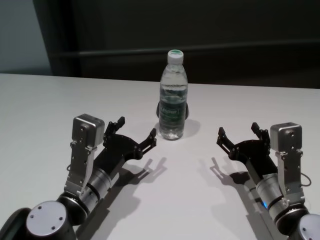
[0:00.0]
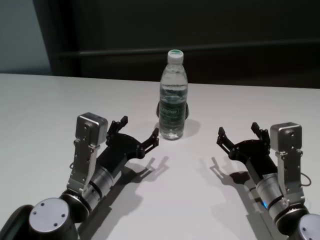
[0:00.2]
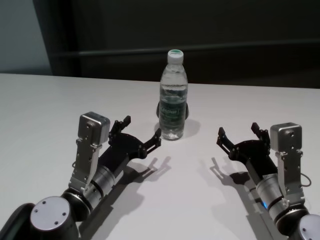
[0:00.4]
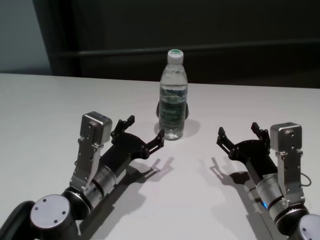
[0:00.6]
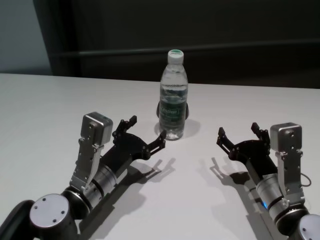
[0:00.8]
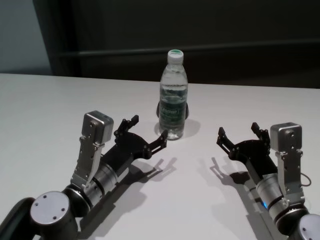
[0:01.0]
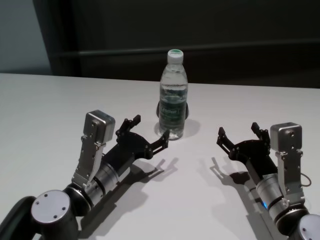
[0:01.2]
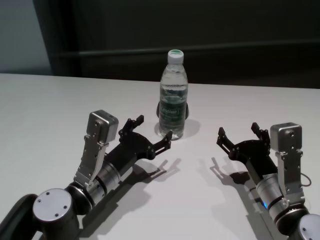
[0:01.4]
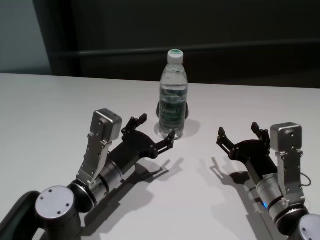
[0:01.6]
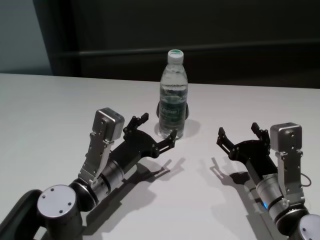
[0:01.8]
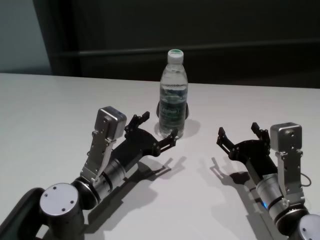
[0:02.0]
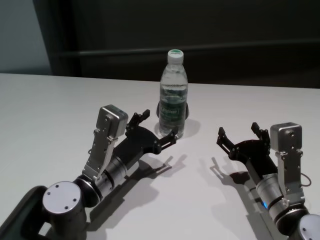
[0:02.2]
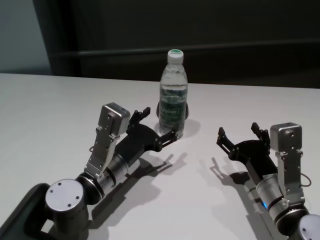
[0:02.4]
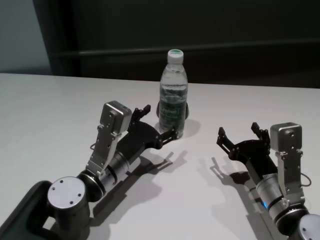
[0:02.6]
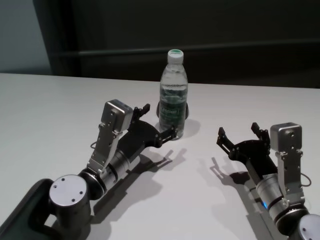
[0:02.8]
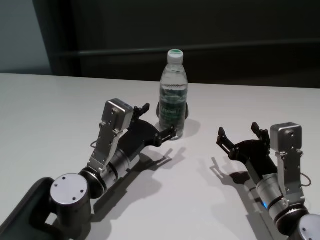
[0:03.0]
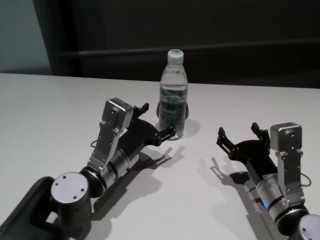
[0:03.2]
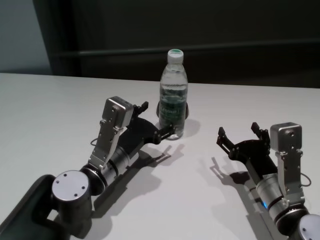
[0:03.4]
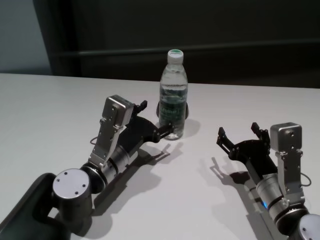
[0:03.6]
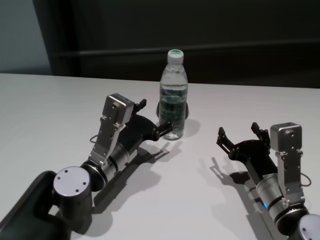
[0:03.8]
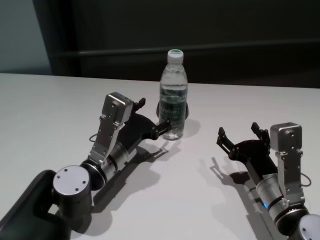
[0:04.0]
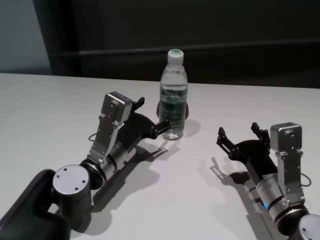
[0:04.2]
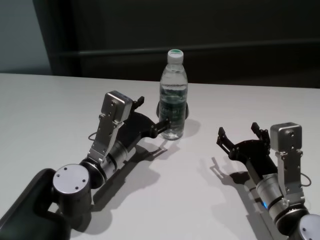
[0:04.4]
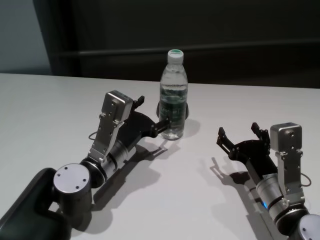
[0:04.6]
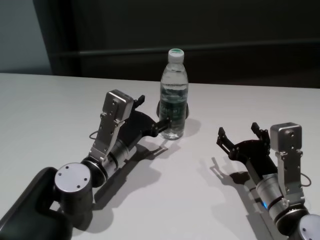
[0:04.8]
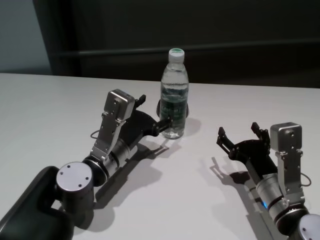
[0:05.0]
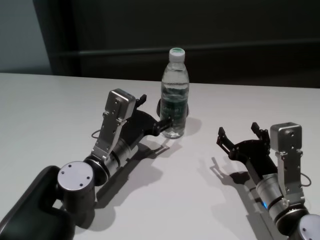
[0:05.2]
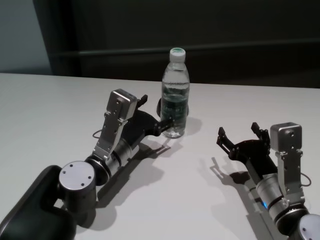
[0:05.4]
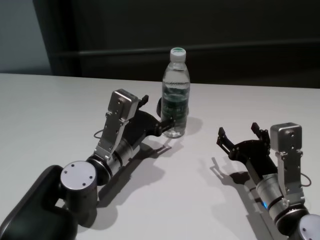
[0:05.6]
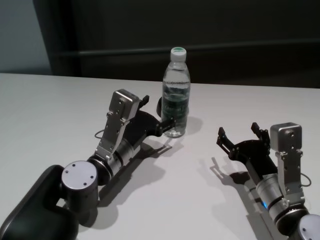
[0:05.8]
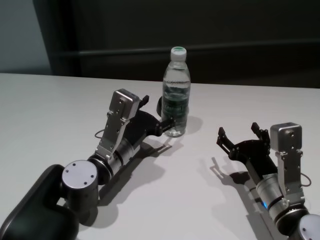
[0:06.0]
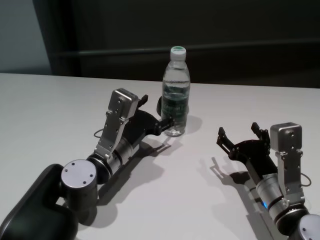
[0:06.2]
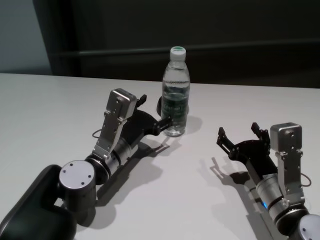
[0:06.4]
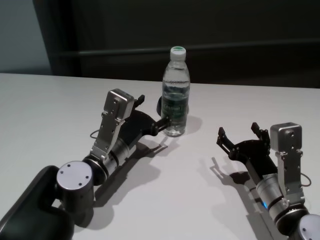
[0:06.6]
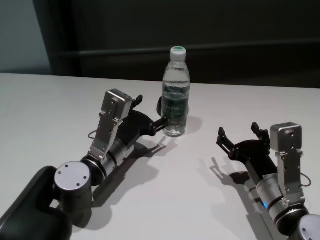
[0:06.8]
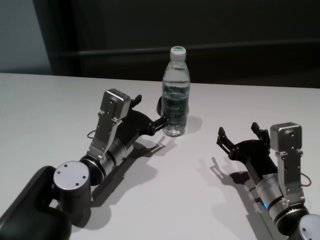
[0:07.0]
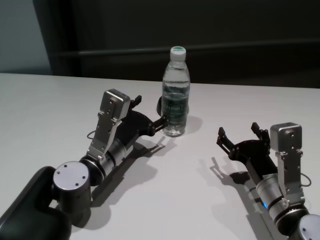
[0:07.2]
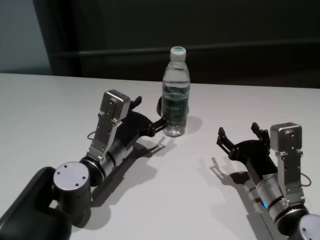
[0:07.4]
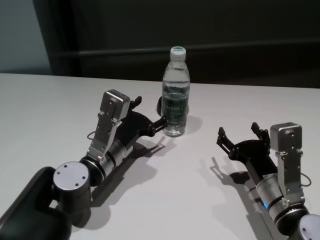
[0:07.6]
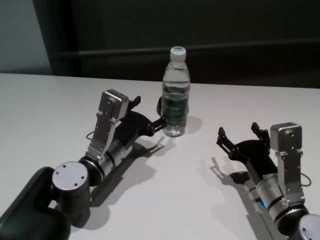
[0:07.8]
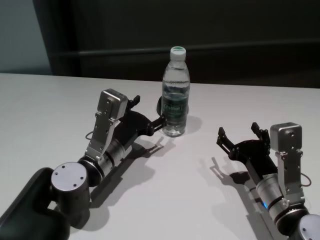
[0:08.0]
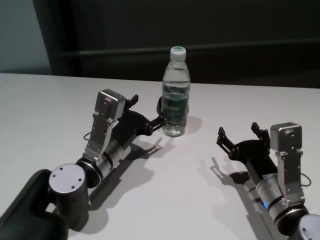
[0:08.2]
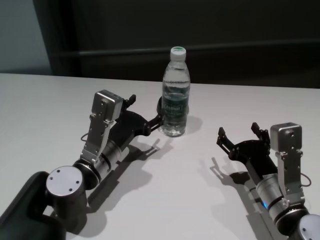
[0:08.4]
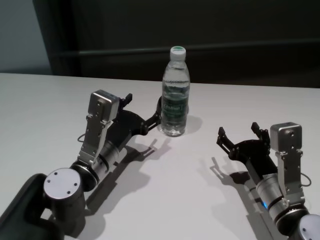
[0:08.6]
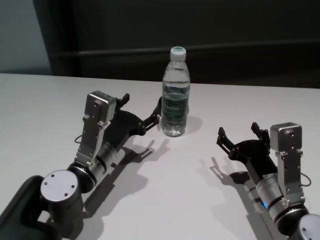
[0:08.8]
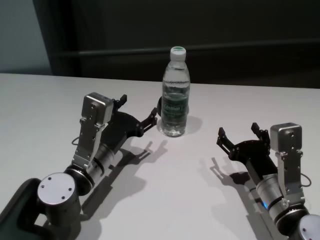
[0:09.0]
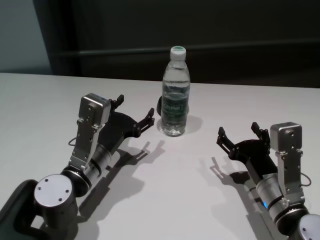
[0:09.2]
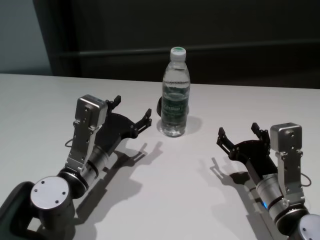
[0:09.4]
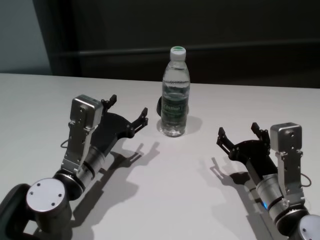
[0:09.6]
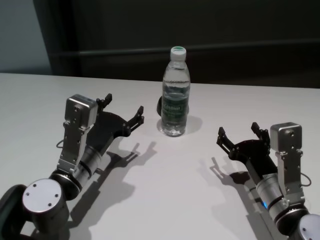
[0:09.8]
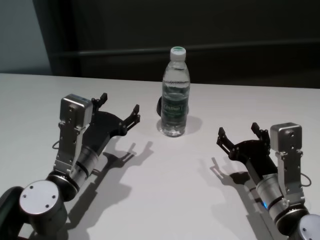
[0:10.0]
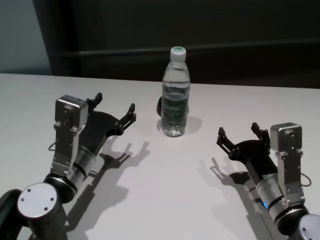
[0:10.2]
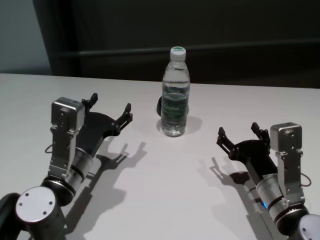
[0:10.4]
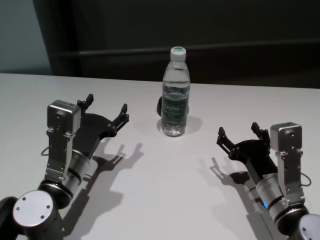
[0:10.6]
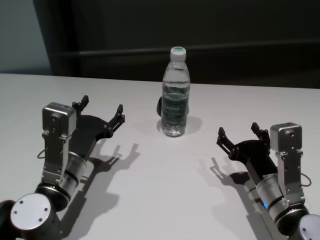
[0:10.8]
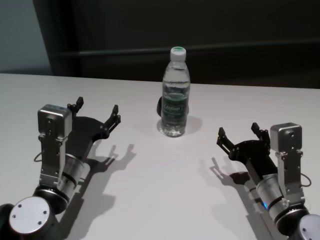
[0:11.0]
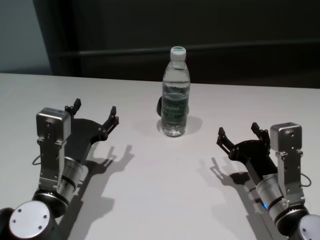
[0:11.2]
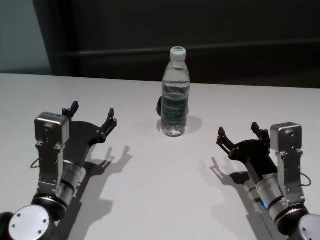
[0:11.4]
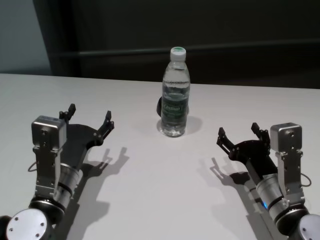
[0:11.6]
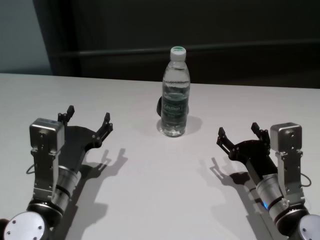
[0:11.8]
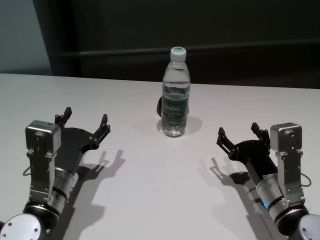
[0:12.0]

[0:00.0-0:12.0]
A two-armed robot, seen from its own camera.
Task of the whole recording: return to a safe position after touching an obstacle with your arm on the white table.
Step, 0:00.0 to 0:09.0: Touch the bottle with left gripper.

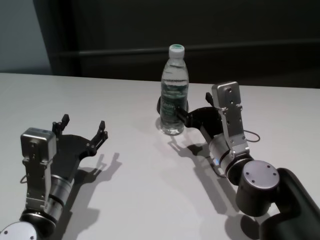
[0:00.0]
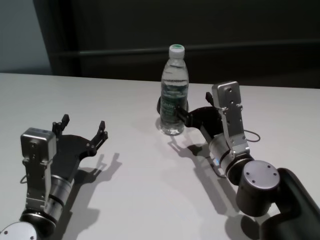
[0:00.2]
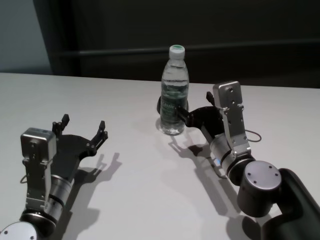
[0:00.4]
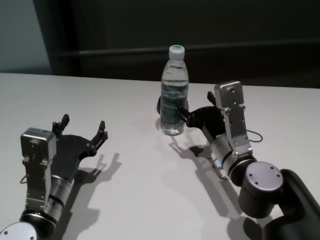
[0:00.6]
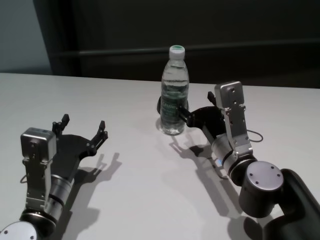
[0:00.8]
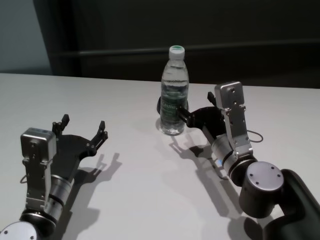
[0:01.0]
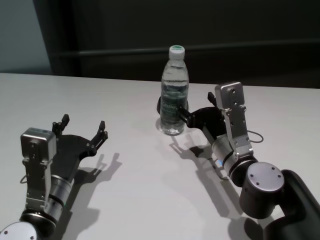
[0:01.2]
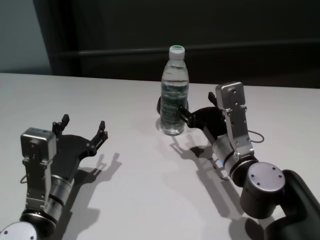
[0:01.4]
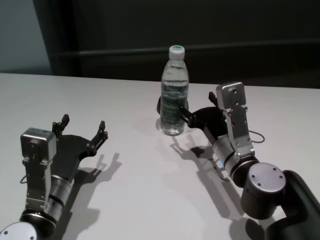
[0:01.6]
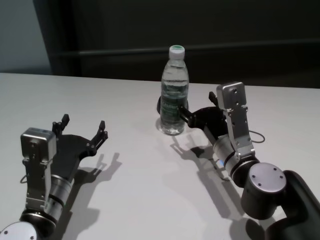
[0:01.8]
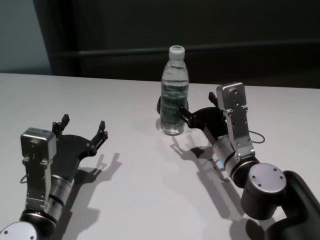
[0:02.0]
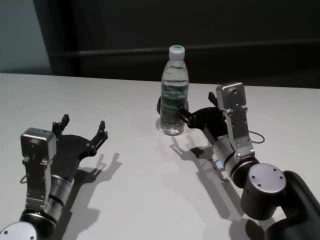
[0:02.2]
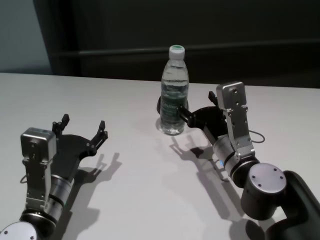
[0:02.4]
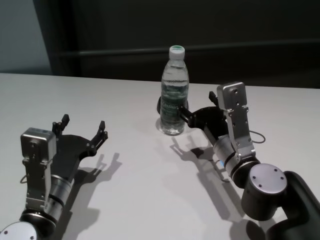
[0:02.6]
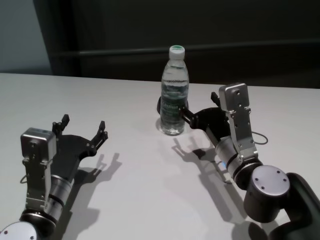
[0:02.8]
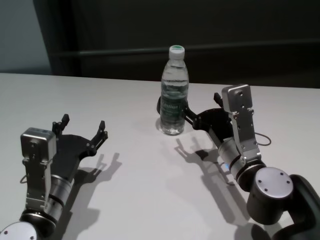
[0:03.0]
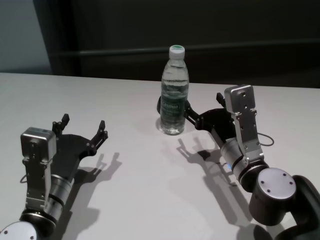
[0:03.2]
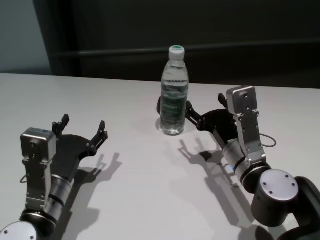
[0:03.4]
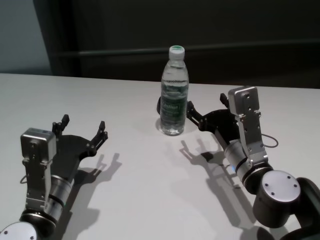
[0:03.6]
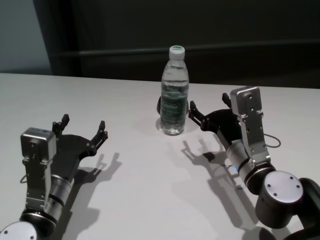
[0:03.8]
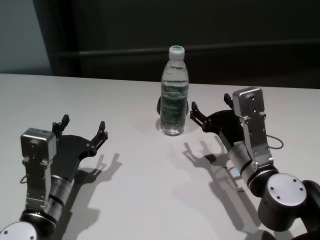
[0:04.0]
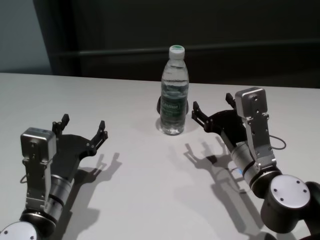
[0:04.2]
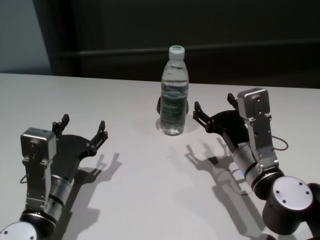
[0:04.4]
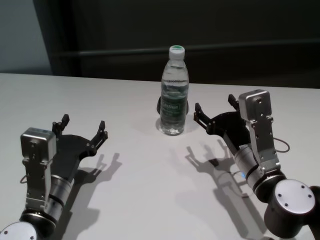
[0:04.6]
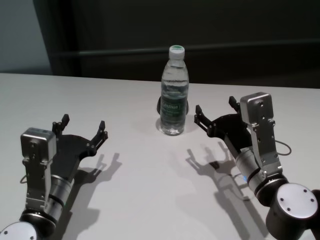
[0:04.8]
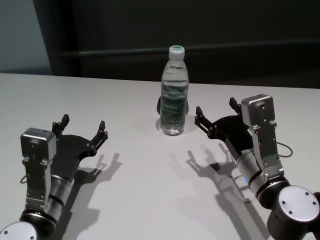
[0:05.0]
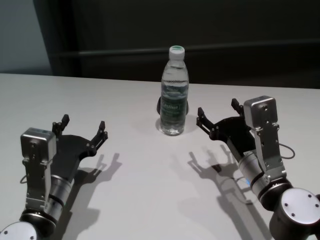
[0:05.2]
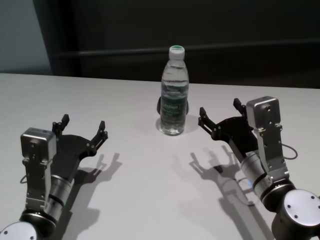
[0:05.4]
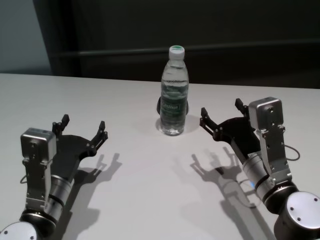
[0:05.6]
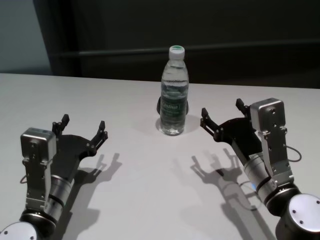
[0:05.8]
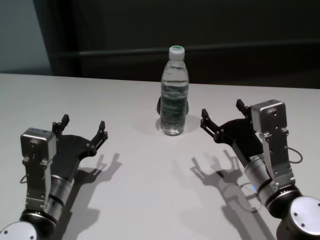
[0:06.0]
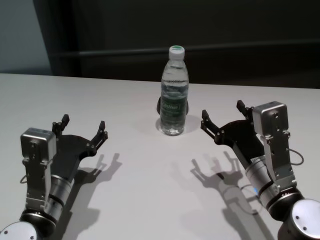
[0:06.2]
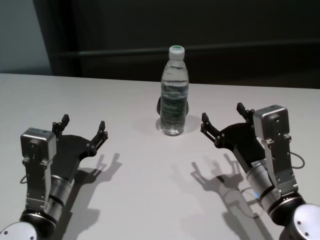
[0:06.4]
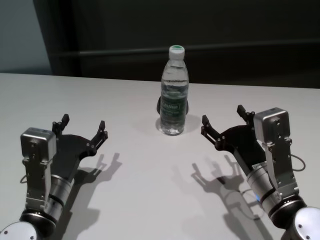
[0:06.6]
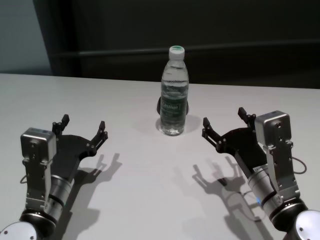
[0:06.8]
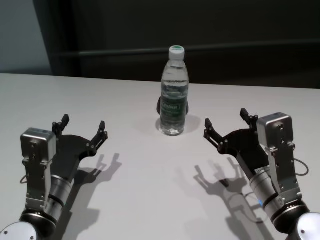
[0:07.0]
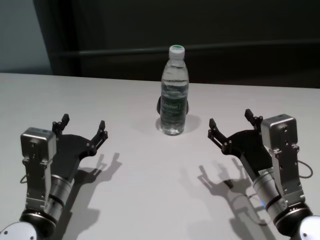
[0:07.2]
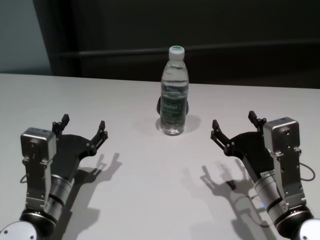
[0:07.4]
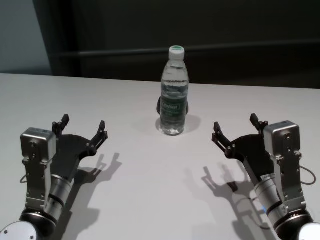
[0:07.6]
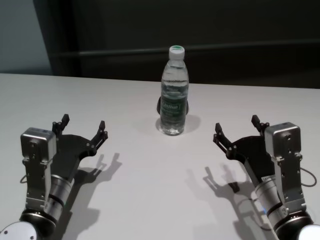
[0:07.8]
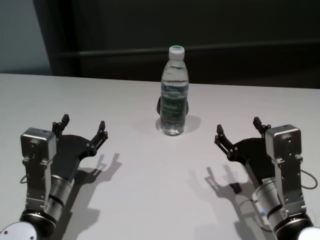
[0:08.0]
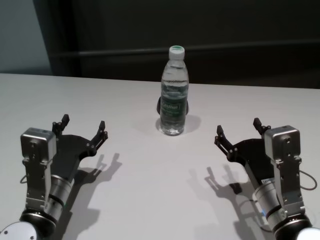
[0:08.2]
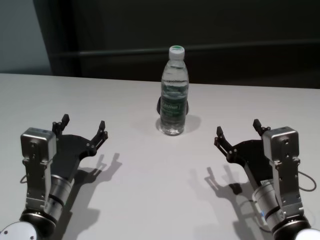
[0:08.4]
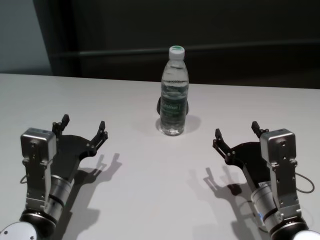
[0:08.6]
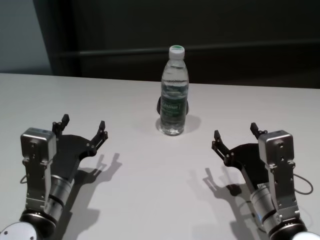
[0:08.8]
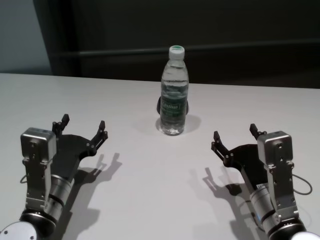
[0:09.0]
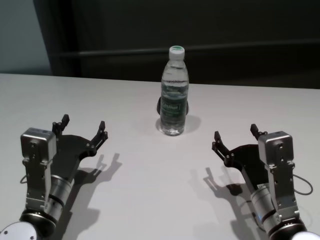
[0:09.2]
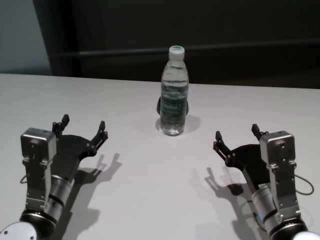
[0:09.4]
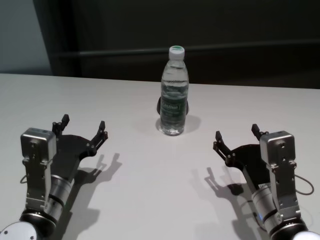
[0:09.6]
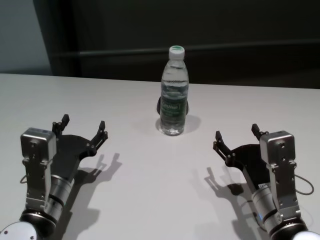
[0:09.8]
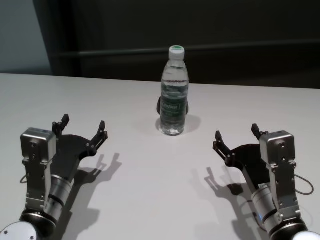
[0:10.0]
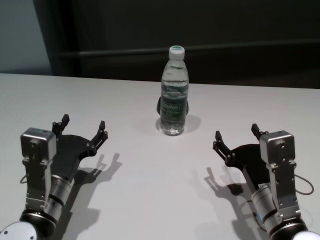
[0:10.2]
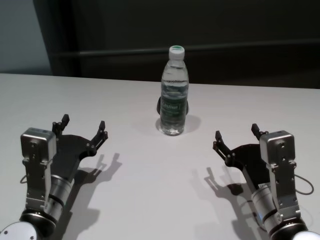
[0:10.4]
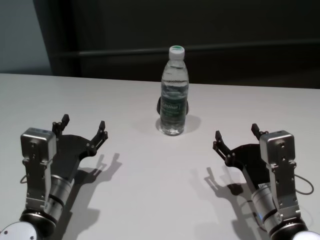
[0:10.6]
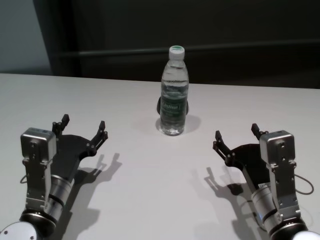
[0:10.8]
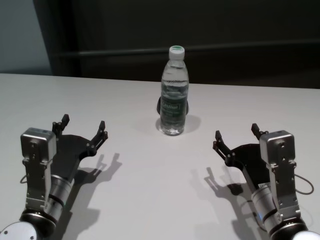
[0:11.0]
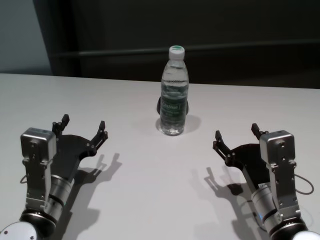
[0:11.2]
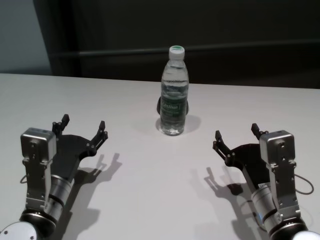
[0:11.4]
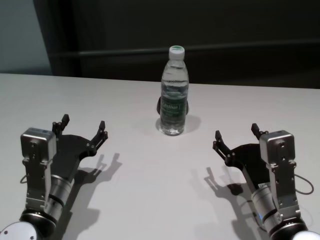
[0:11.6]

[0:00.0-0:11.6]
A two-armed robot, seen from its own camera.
Task of the whole recording: return to a safe position after touching an obstacle with your arm on the white table.
Step, 0:00.0 to 0:04.0: Touch the bottle with right gripper.
